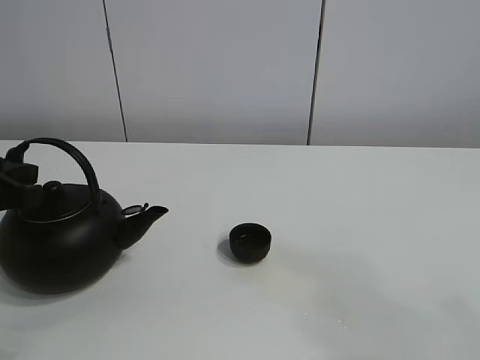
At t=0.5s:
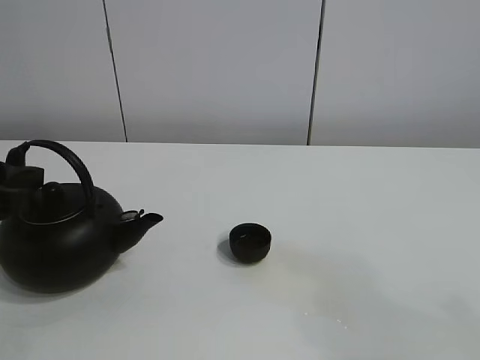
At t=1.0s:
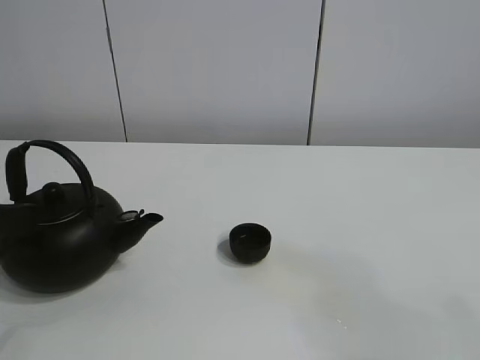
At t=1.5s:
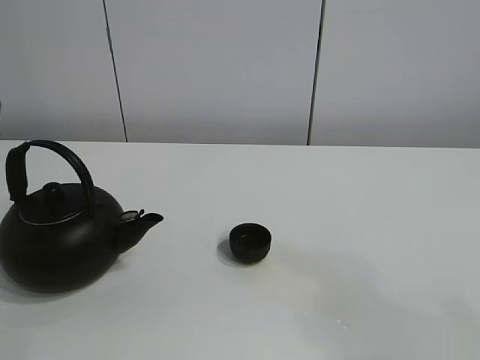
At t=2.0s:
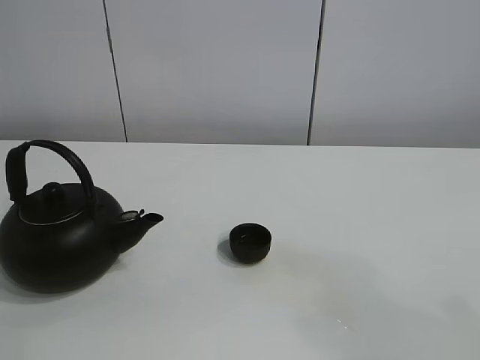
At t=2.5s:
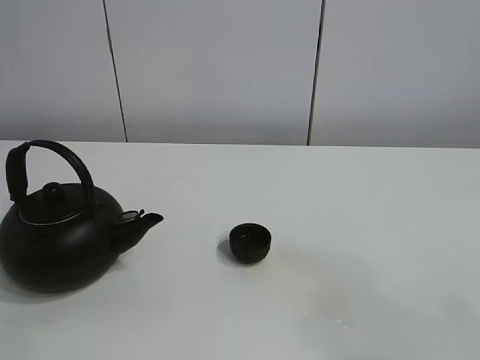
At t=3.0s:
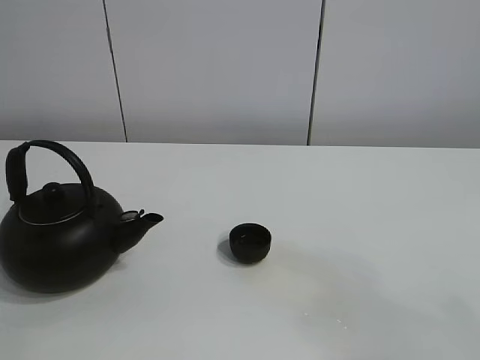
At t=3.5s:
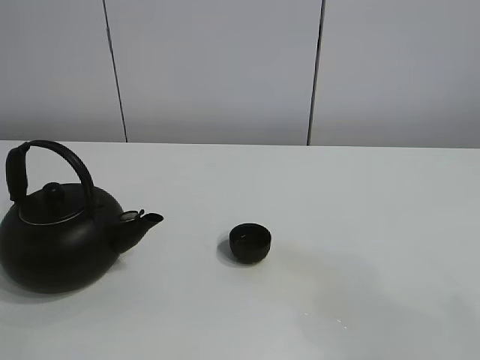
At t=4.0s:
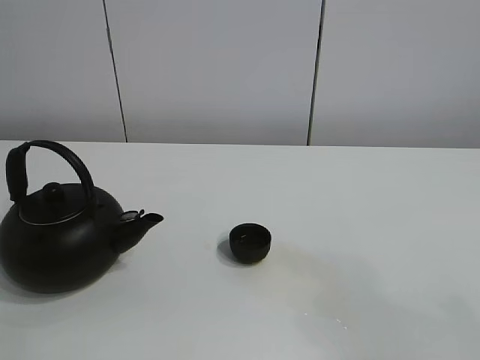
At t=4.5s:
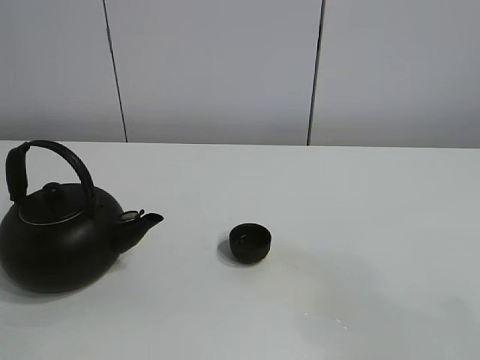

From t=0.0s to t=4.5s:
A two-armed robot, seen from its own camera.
Task of the whole recording: pour tea into the teacup.
From t=0.0s to t=2.0s: The left gripper moves upward, approximately 25 cm, and opens up.
